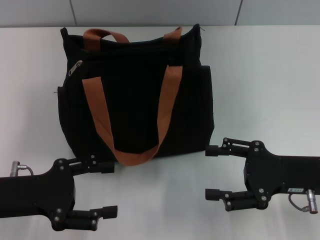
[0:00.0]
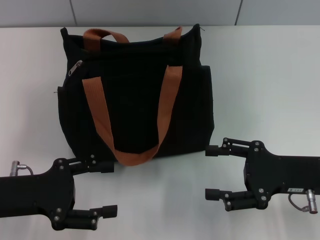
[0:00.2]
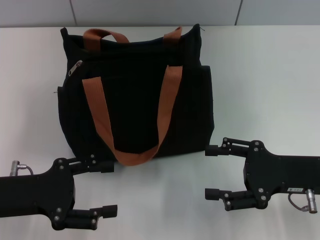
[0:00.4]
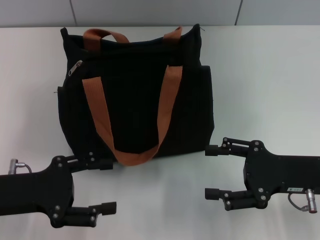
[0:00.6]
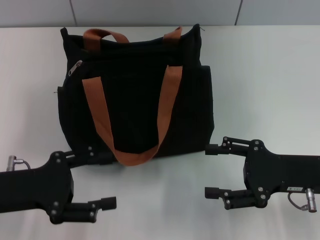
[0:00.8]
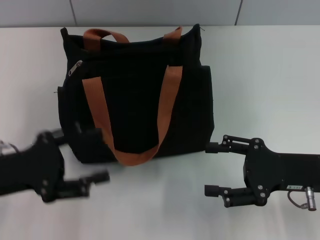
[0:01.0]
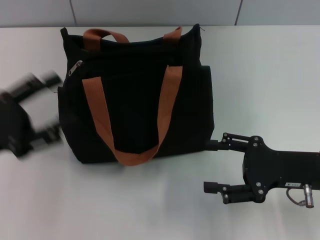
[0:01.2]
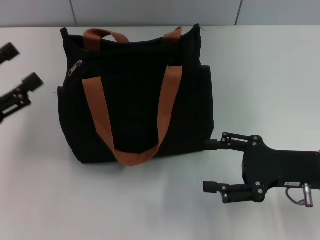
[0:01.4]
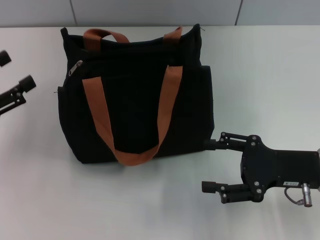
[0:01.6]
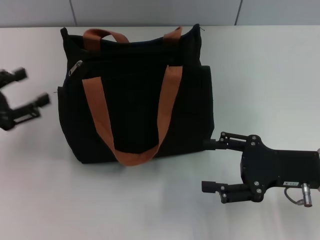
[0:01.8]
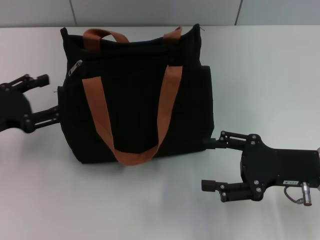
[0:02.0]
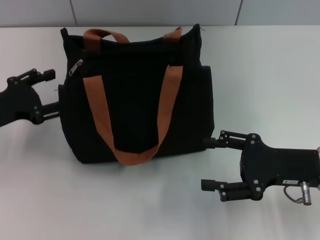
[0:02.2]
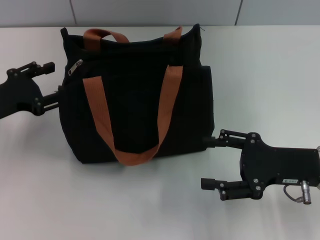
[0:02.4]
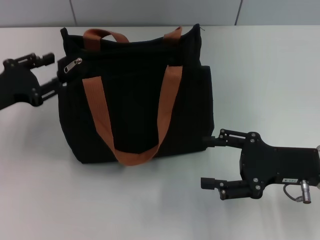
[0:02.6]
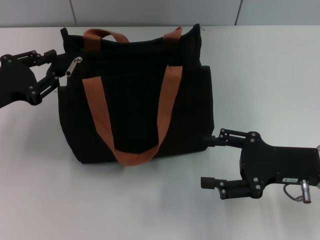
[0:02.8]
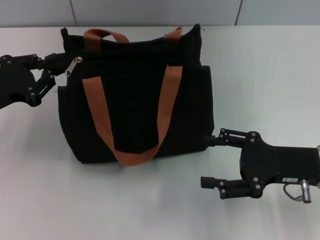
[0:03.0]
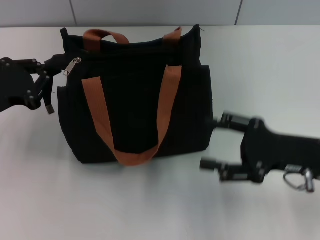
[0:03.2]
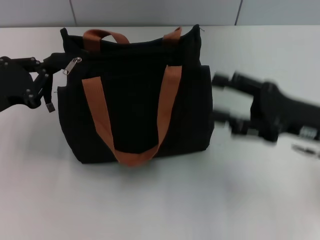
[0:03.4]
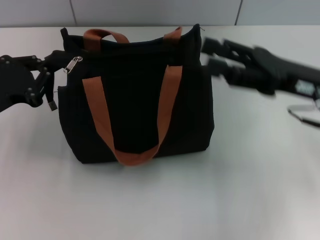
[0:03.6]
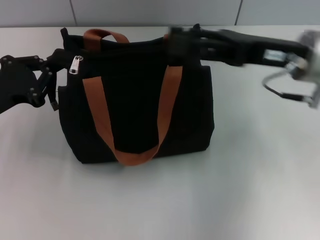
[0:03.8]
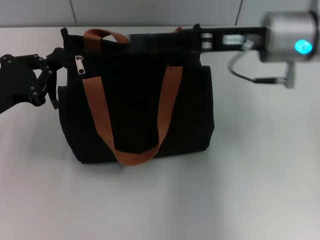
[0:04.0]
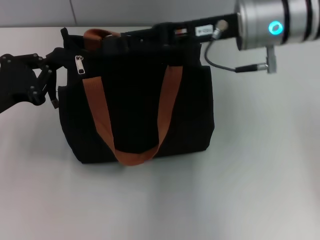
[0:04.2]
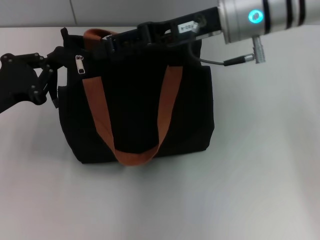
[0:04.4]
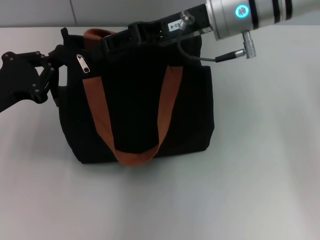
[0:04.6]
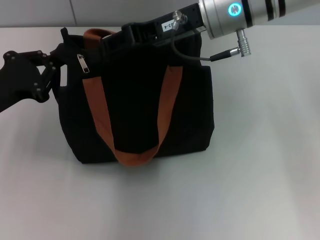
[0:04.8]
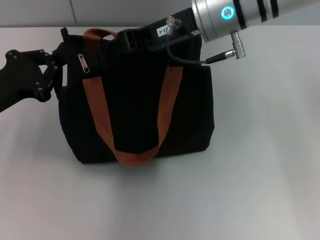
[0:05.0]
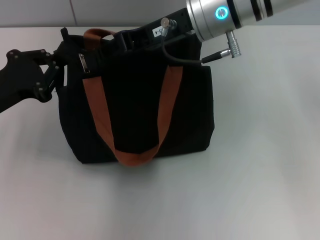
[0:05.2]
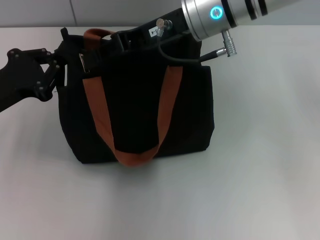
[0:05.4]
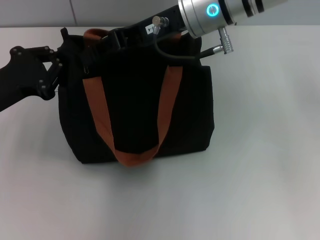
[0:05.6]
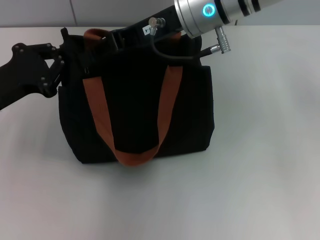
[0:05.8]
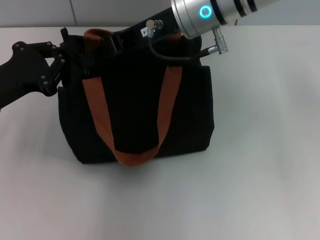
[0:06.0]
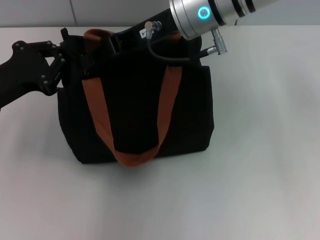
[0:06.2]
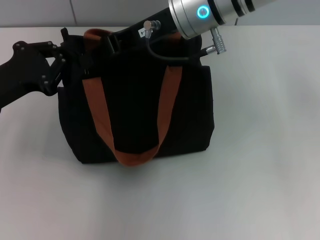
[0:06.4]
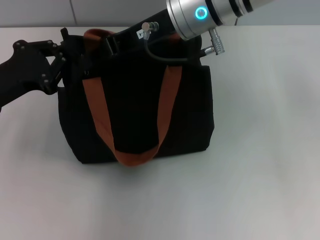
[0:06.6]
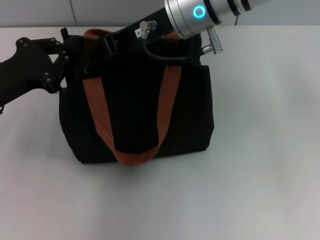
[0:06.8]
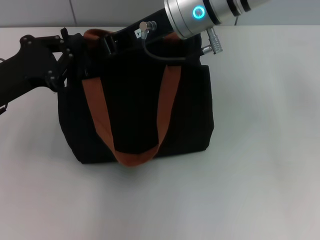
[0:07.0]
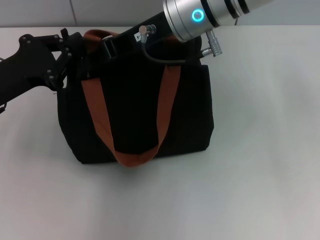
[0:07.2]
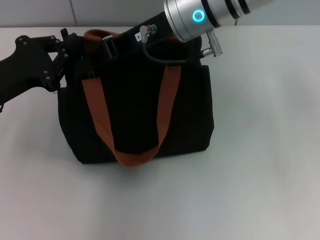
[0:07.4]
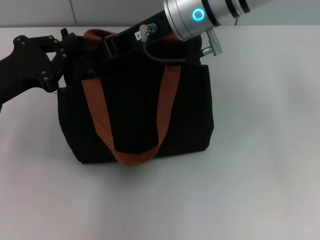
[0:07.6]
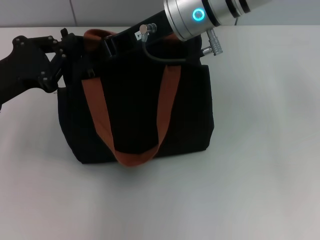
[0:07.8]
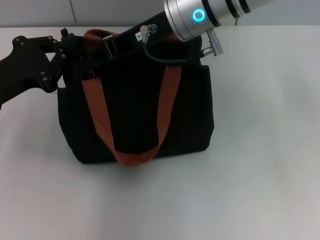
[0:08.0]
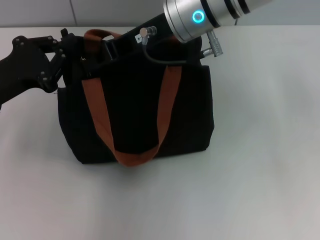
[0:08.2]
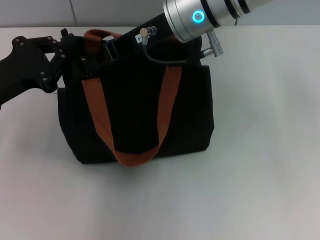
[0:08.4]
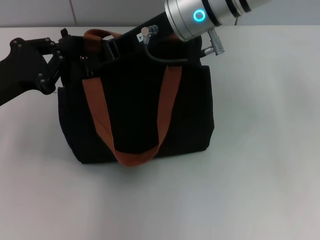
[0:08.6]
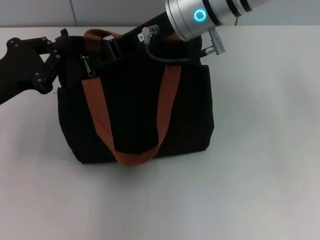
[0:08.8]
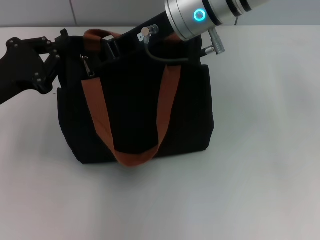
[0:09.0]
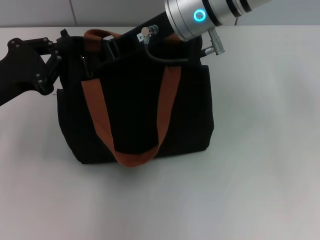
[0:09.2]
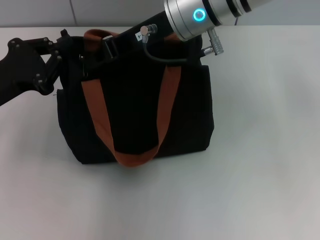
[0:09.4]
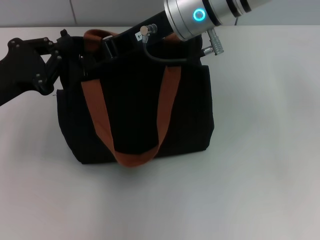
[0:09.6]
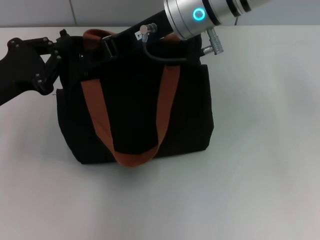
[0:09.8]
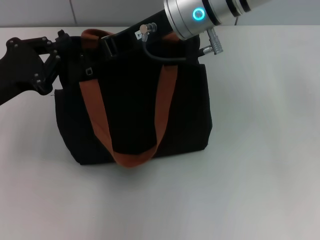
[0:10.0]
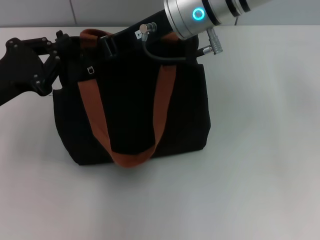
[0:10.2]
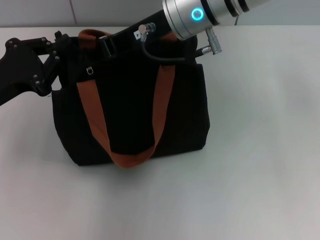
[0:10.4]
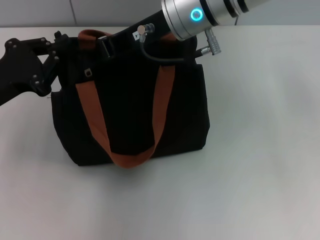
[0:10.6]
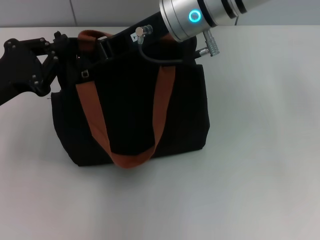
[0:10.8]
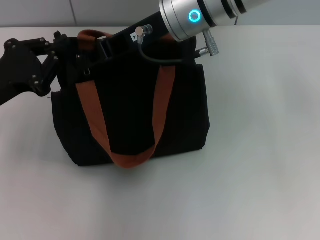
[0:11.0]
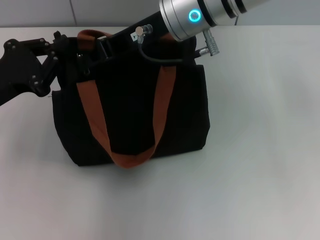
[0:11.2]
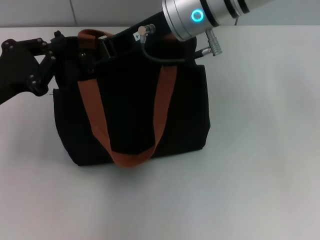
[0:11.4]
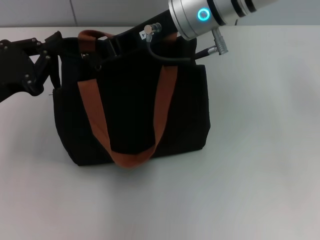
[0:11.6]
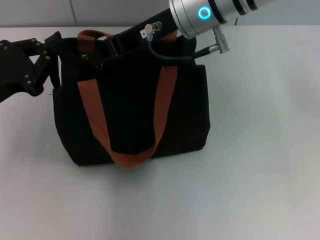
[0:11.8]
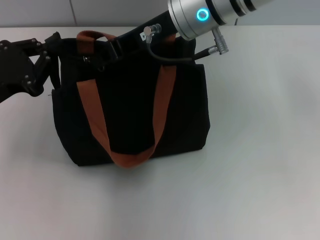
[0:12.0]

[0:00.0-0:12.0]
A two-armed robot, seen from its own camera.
0.0 to 1.6 s: The left gripper shifts some 5 cm to the left.
1.6 to 3.0 s: The left gripper travels forward by roughly 5 cm, and closes its fingers.
3.0 to 4.4 s: The left gripper closes, while the right gripper travels upward, to the left and forward by about 25 cm.
4.4 to 6.0 s: The right gripper goes some 5 cm to the left, and closes up.
6.0 to 7.6 s: Both grippers stay put.
7.6 to 10.4 s: Both grippers stay about where they are.
10.4 to 12.0 s: Neither gripper changes place.

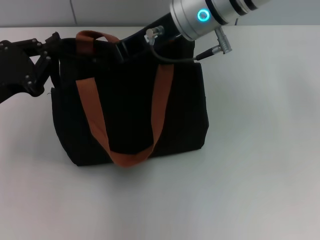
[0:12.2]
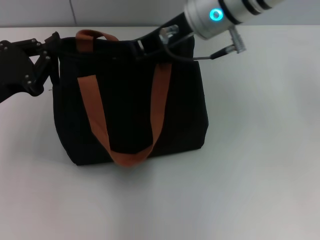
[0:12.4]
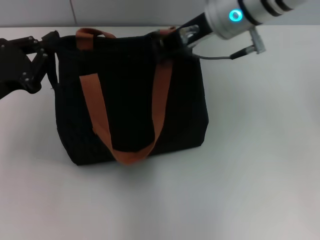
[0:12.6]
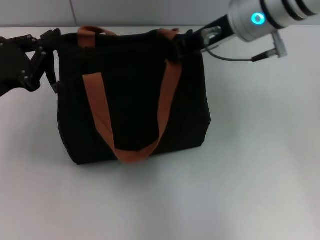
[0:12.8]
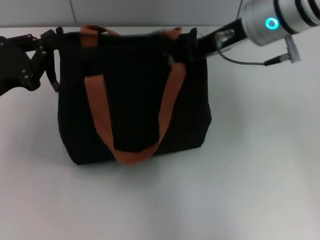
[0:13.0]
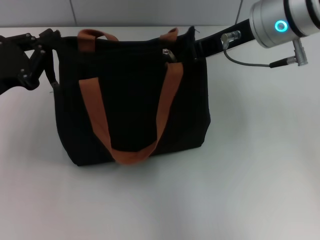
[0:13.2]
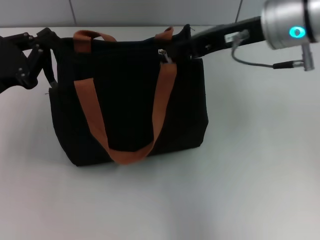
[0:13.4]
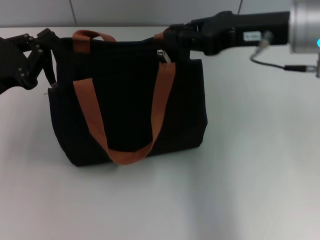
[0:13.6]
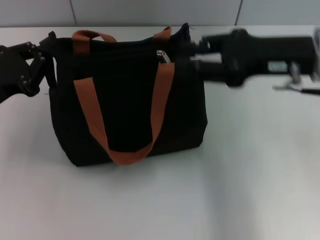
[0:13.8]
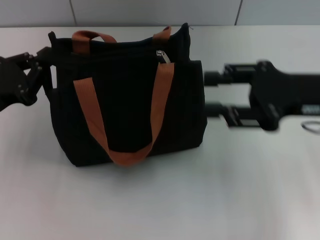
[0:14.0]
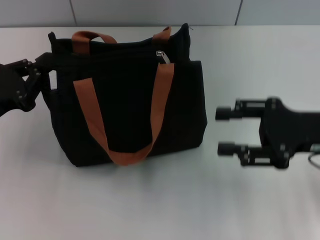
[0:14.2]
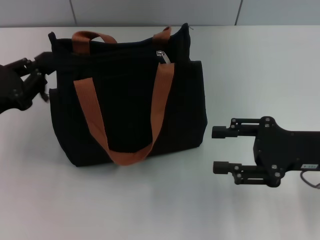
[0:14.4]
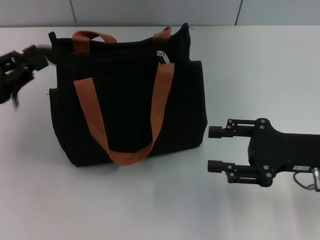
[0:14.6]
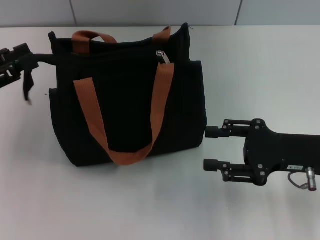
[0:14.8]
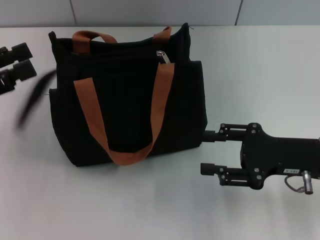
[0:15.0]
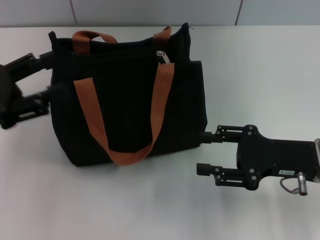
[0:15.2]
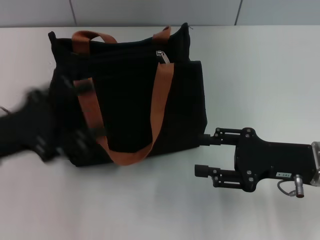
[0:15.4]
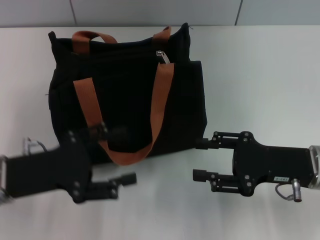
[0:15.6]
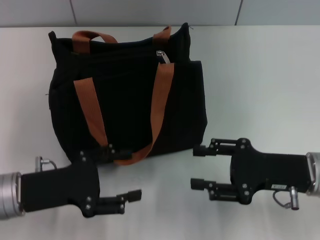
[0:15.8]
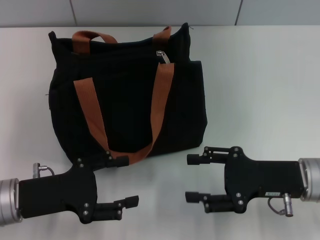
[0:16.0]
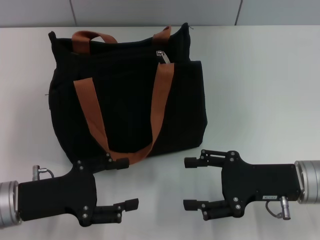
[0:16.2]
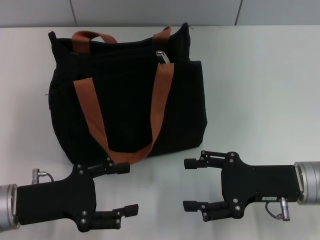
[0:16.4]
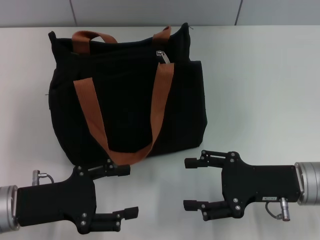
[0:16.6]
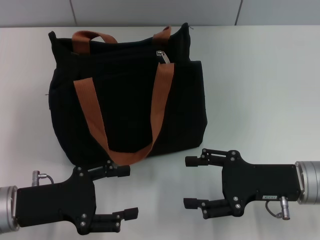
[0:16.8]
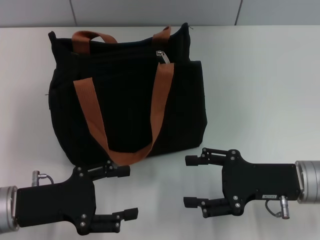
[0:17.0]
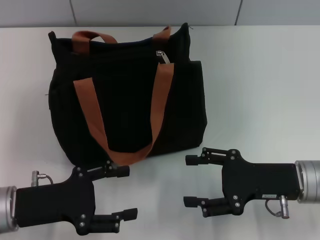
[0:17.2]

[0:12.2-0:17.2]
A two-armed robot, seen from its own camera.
Step, 13.8 to 15.0 s: Grab the zipper with your left hand.
12.2 to 13.8 s: The right gripper goes approximately 15 cm to the right and backward, and opens its fingers.
13.8 to 15.6 s: The left gripper travels backward by approximately 5 cm, and opens up; the right gripper goes about 15 cm downward and backward, and opens.
15.6 to 17.2 s: There are only small adjustments of the grippers.

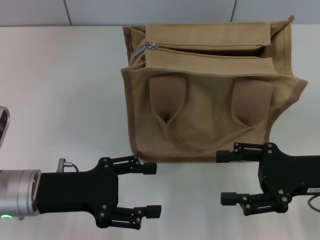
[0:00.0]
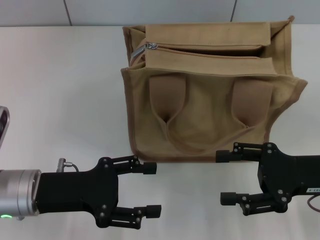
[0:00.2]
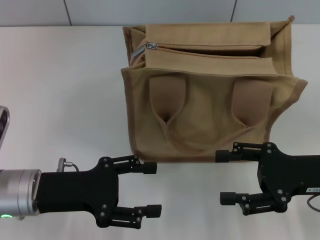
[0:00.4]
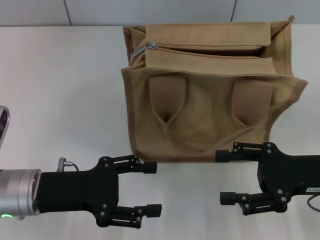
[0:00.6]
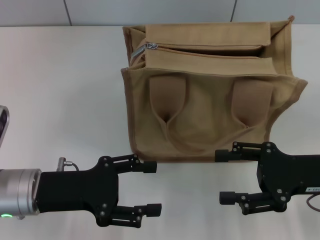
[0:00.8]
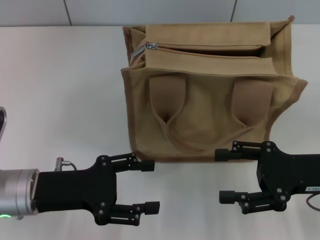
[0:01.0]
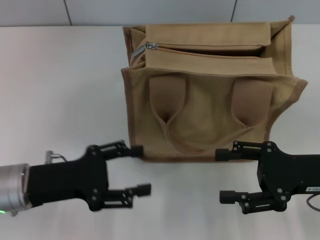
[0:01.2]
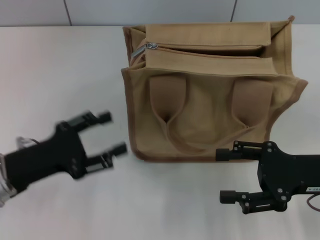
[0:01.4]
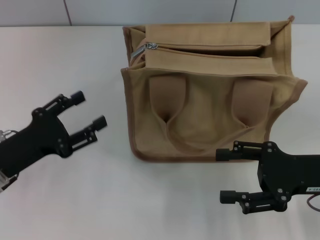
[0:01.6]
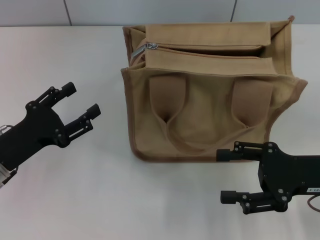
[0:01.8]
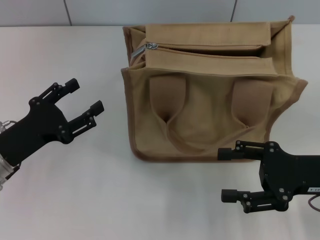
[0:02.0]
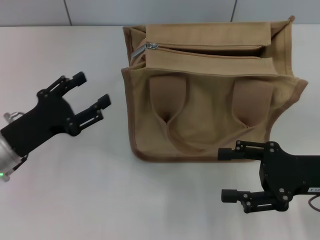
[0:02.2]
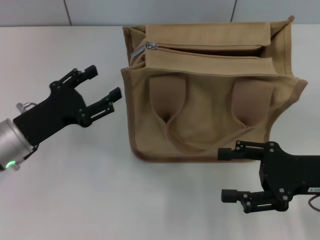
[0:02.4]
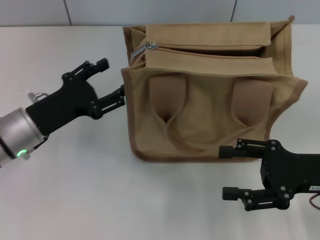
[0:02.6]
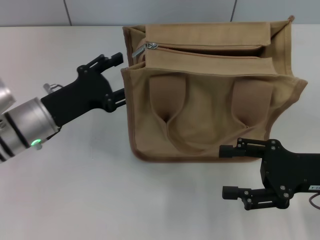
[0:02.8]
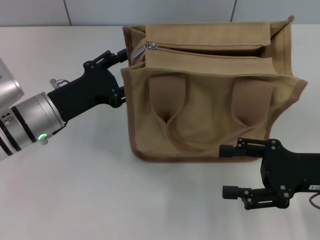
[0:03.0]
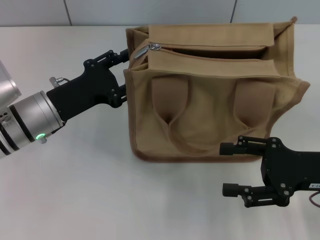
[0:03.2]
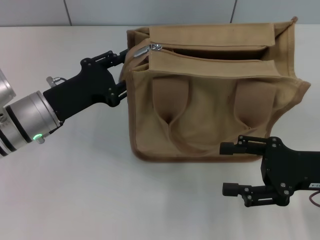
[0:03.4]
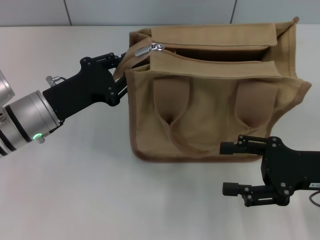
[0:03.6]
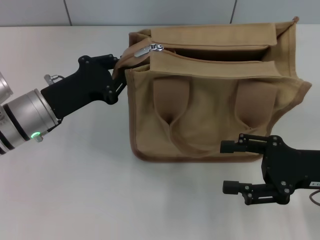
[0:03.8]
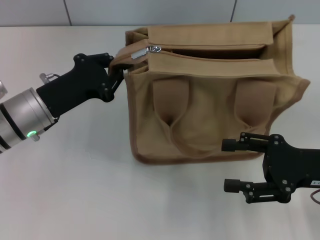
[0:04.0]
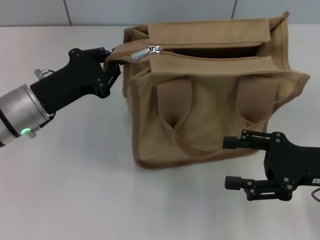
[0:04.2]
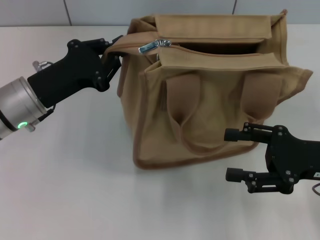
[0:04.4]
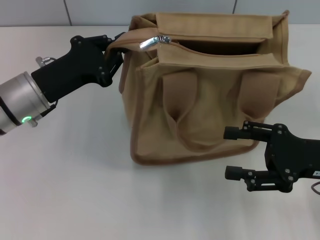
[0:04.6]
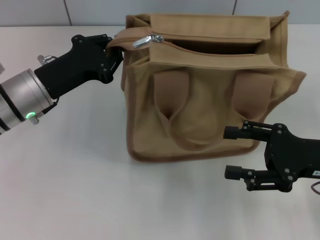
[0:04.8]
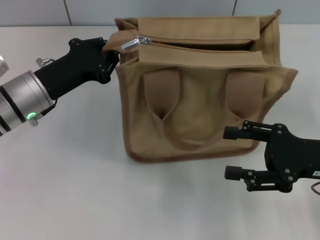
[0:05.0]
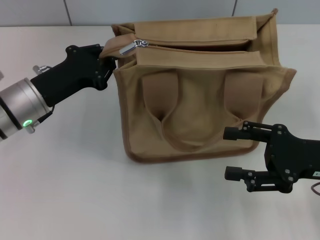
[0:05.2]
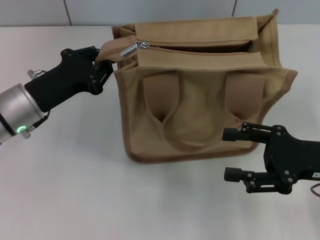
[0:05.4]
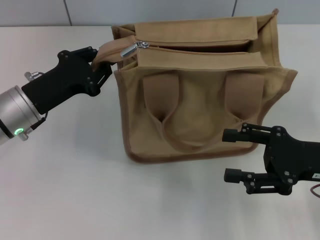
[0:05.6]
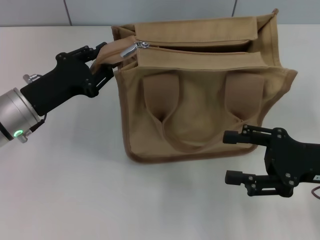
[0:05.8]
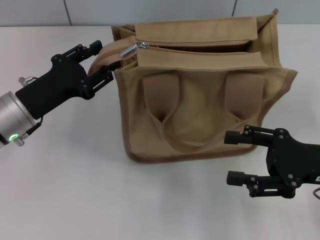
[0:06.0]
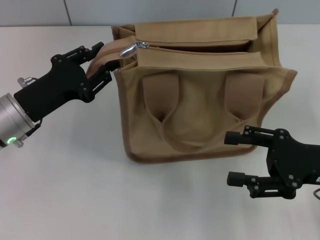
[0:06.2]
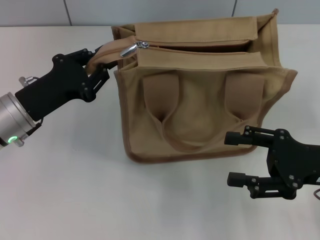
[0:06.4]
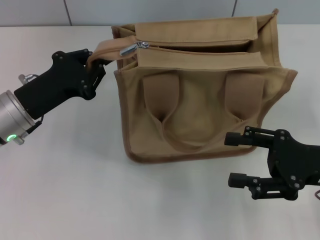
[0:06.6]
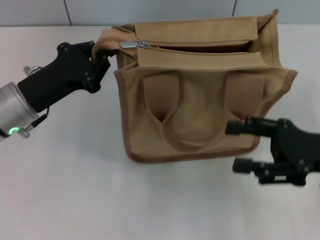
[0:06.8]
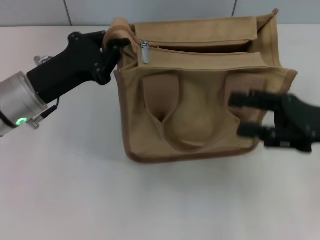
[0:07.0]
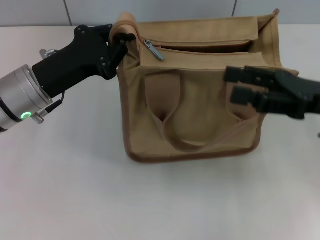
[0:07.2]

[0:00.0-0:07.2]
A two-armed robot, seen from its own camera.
1.4 to 2.8 s: The left gripper goes about 10 cm forward.
2.8 to 4.4 s: The left gripper closes up.
4.4 to 5.8 s: The grippers stay close to where they were, moving slightly.
5.8 to 7.2 s: The right gripper heads upward, covering roughly 5 cm.
